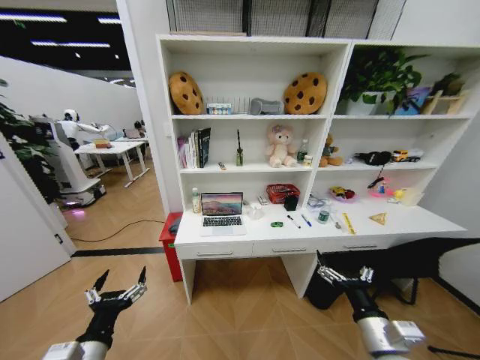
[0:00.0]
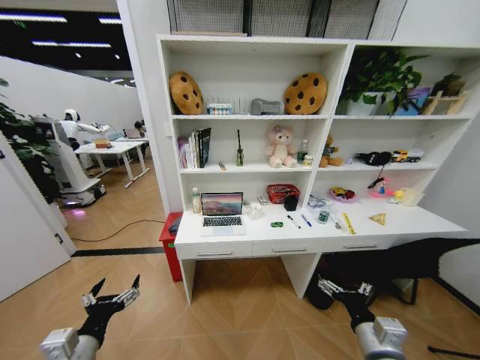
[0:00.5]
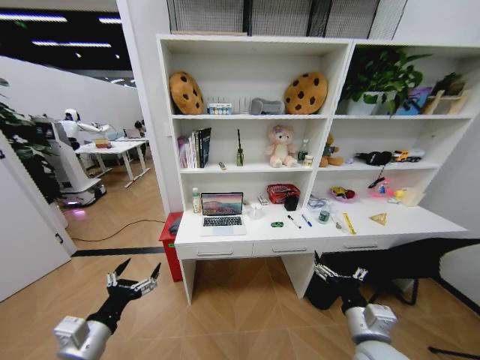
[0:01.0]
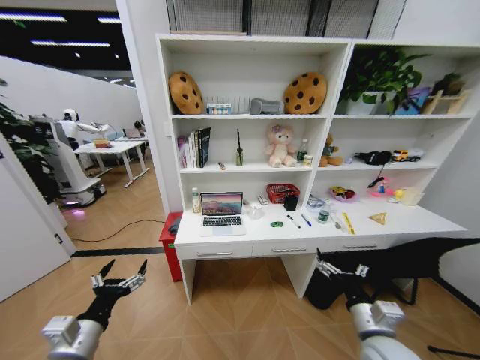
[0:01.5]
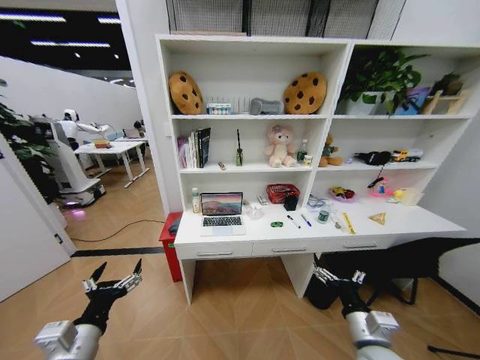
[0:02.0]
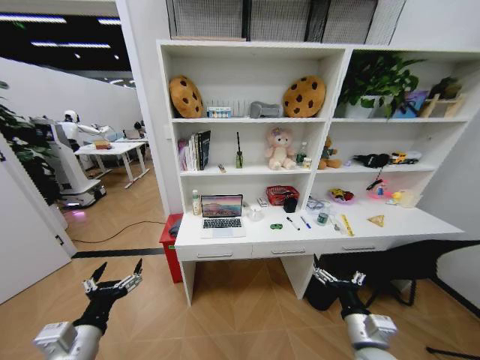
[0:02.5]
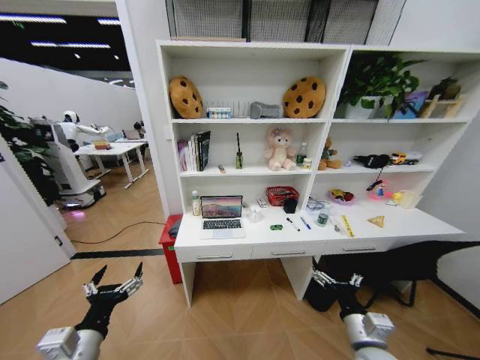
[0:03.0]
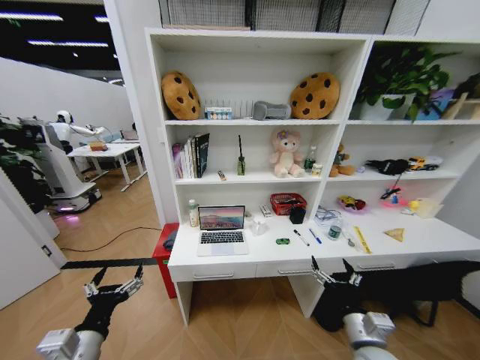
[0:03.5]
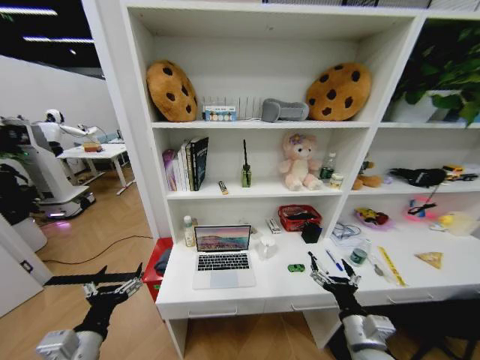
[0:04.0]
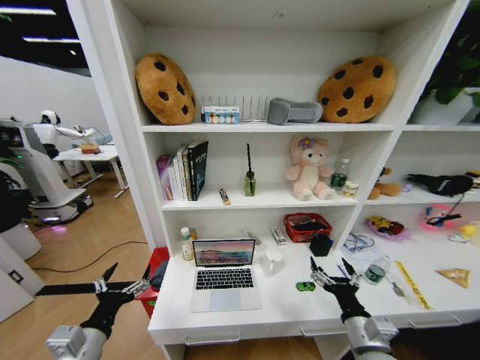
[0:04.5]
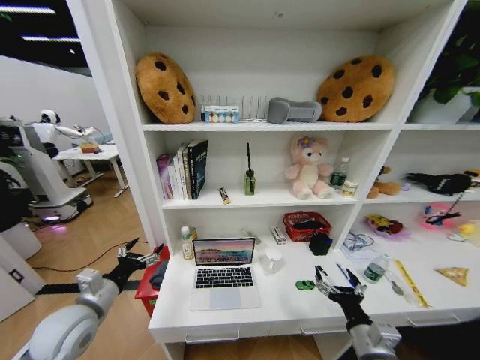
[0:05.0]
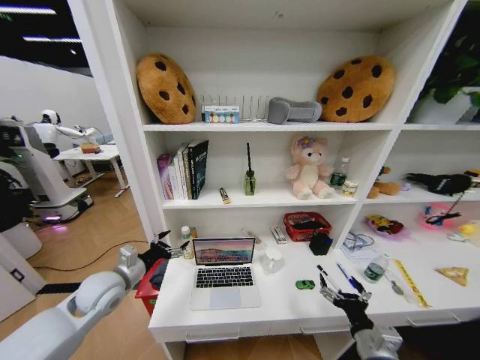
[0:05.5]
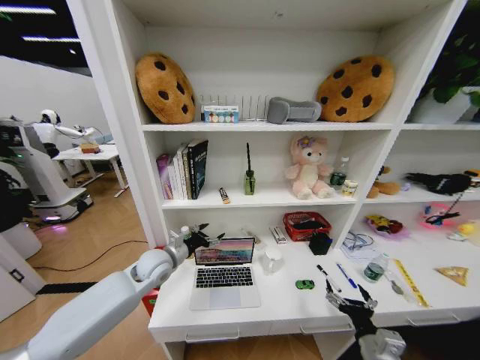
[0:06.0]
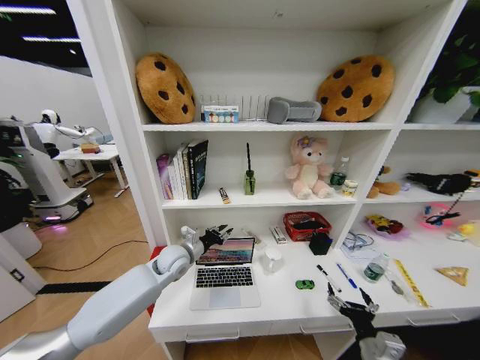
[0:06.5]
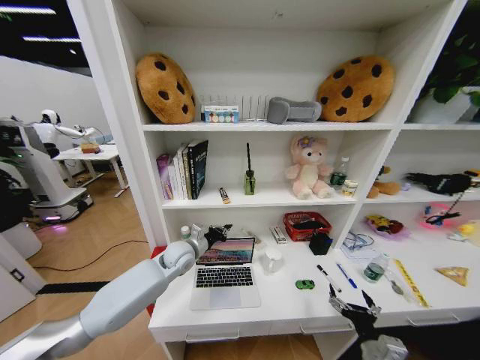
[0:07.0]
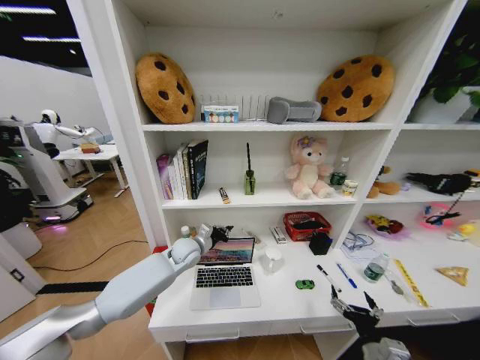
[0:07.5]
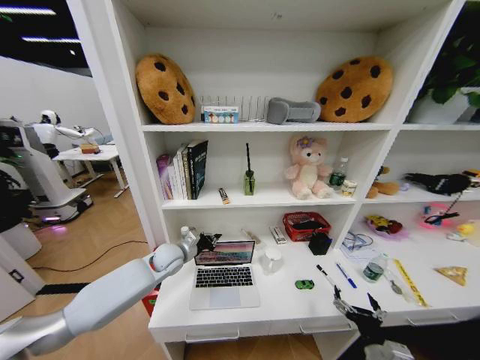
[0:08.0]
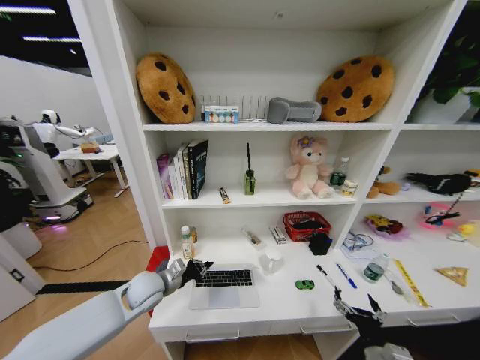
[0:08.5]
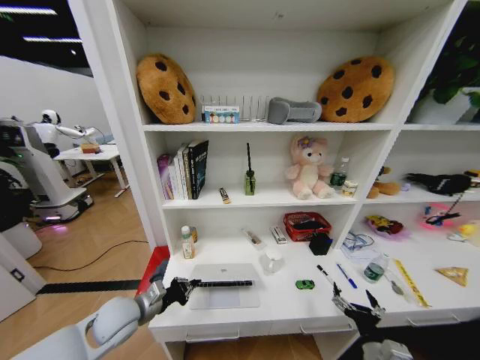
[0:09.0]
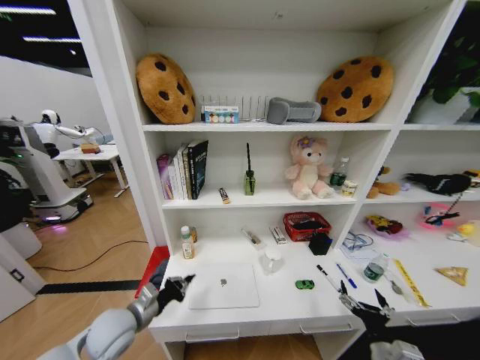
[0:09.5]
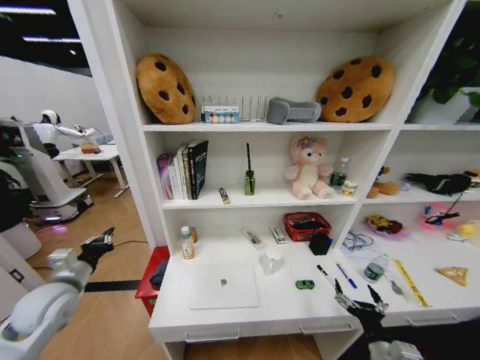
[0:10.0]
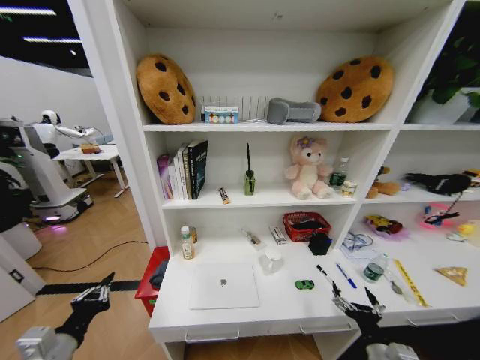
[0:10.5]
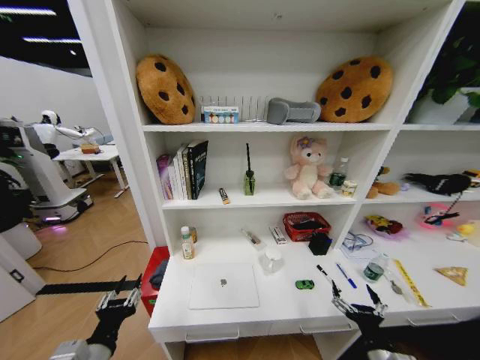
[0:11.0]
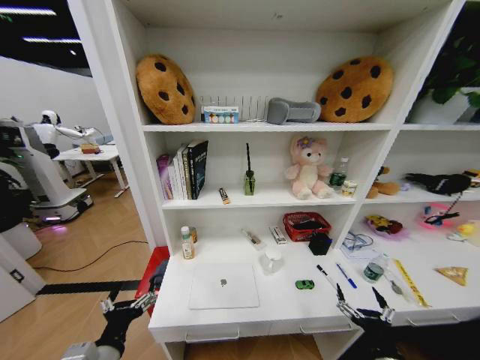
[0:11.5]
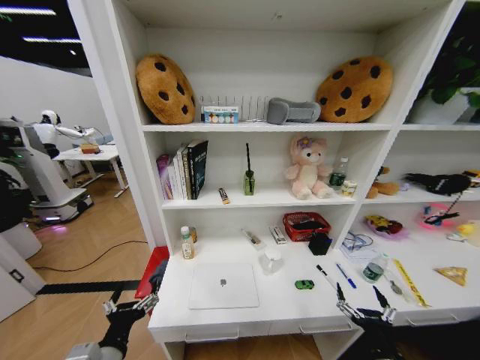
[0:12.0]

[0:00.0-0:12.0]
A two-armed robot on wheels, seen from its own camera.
Task of the whole recording: Organize the objects on the table.
0:04.0 to 0:06.0: The right gripper changes place by about 5 cm. Meanwhile the left gripper heads forward, covering approximately 25 cm.
0:06.0 to 0:08.0: The left gripper closes.
0:08.0 to 0:10.0: The left gripper shifts roughly 25 cm to the left and backward.
0:10.0 to 0:12.0: The left gripper travels backward and to the right by some 20 cm, and opens up.

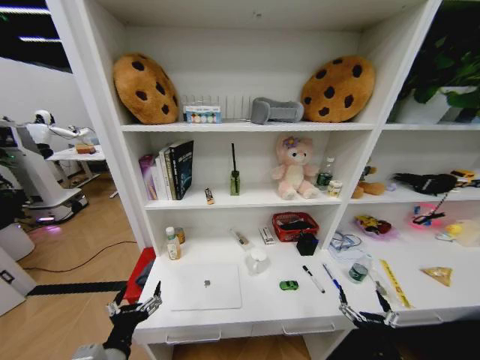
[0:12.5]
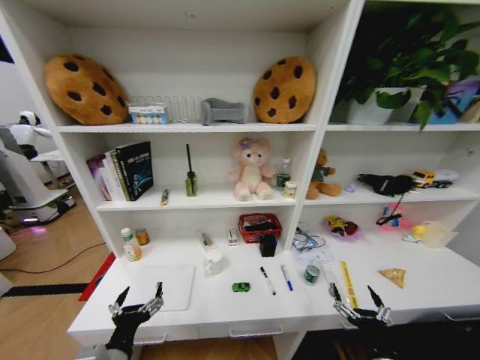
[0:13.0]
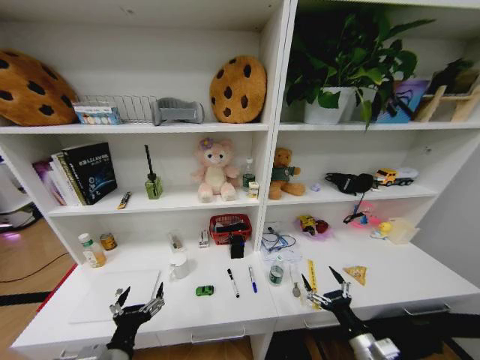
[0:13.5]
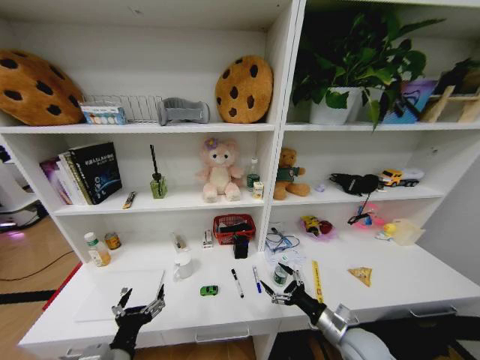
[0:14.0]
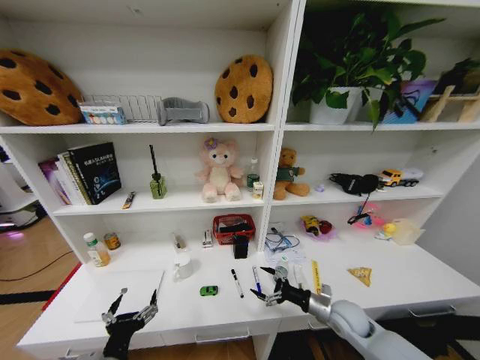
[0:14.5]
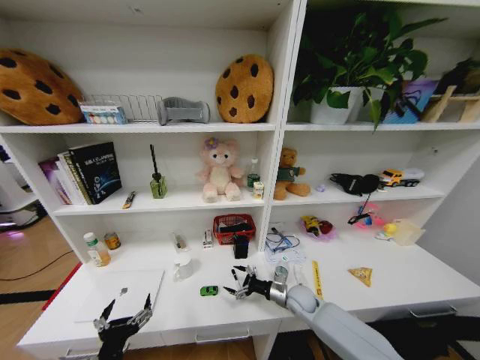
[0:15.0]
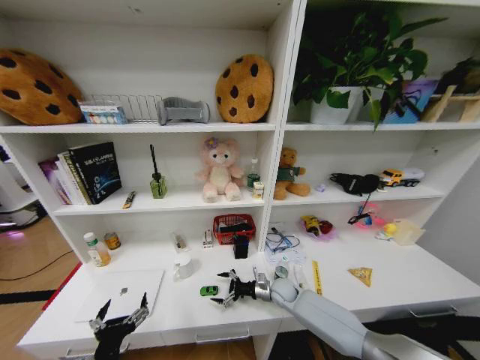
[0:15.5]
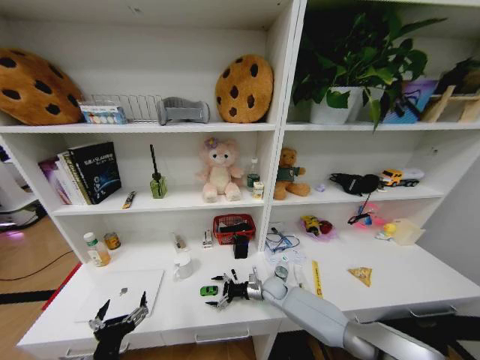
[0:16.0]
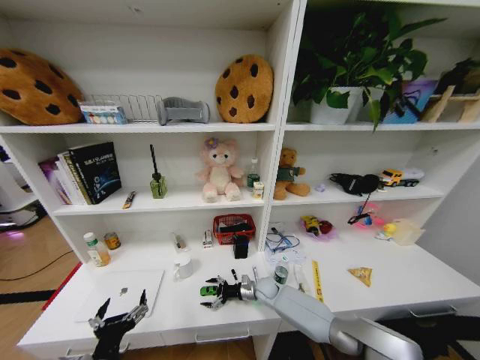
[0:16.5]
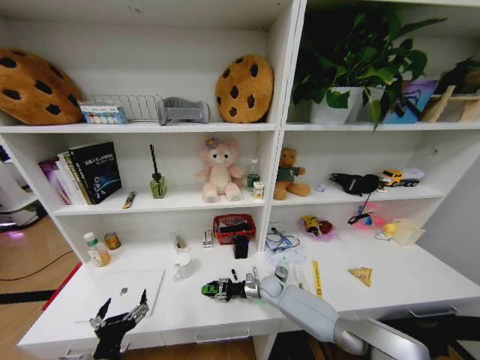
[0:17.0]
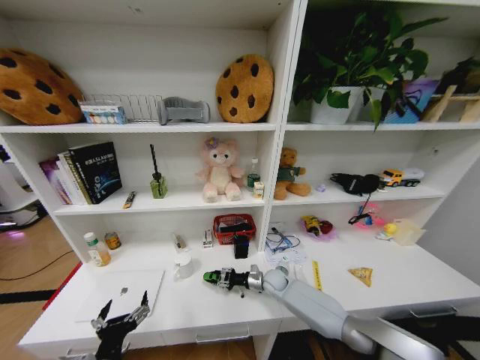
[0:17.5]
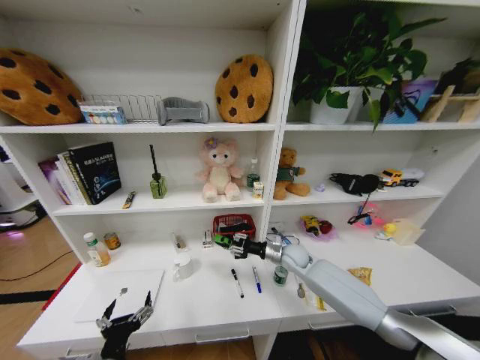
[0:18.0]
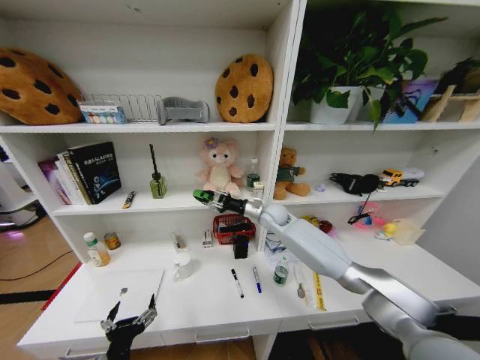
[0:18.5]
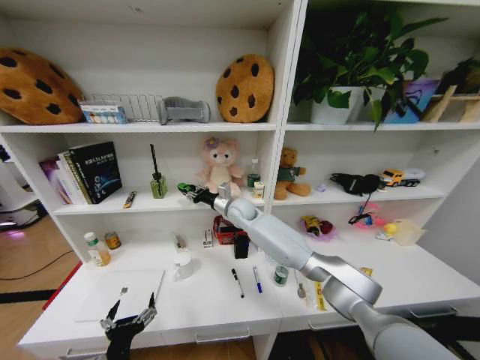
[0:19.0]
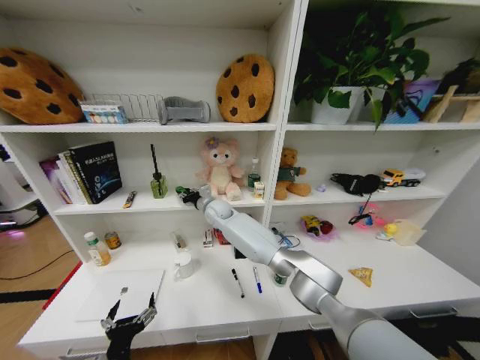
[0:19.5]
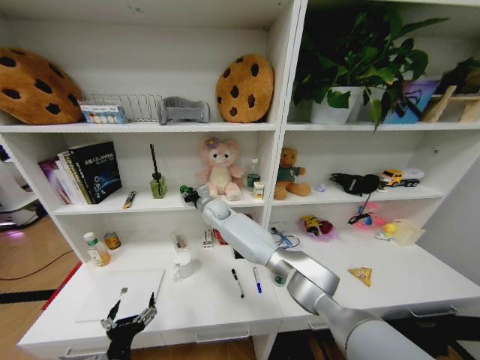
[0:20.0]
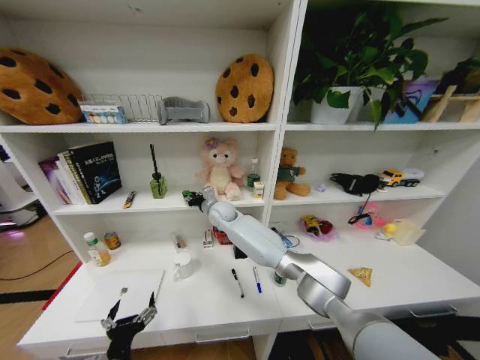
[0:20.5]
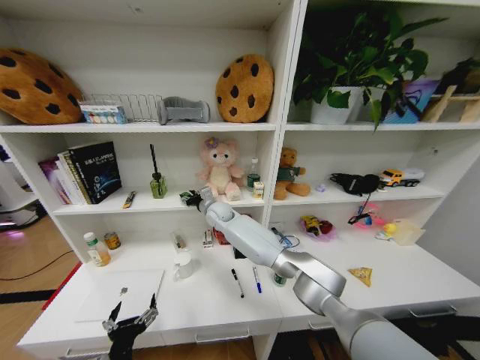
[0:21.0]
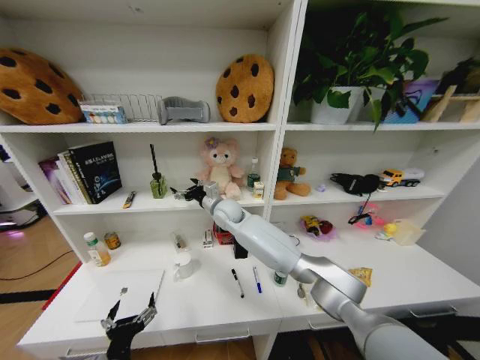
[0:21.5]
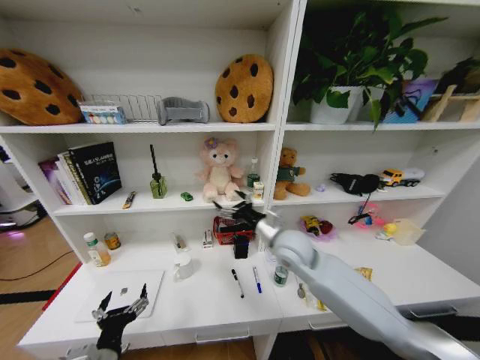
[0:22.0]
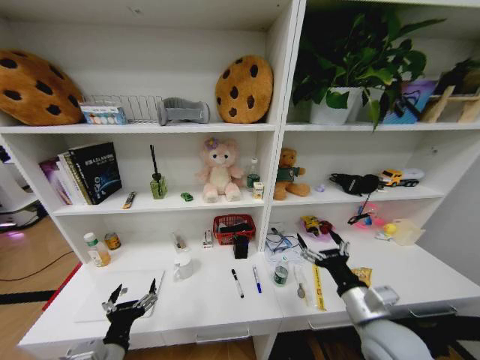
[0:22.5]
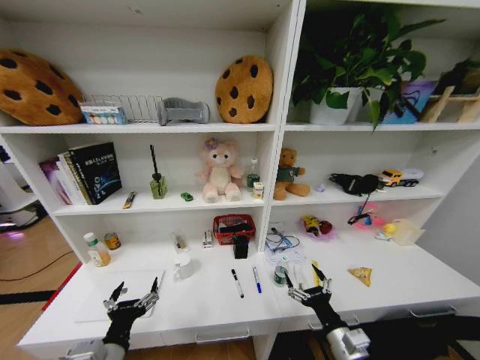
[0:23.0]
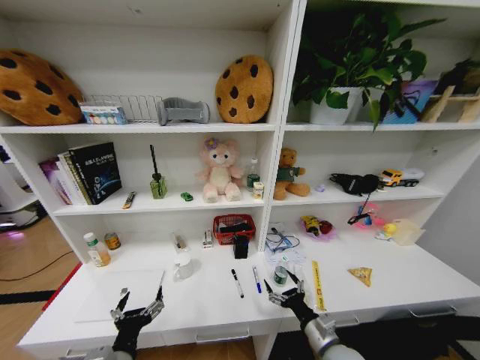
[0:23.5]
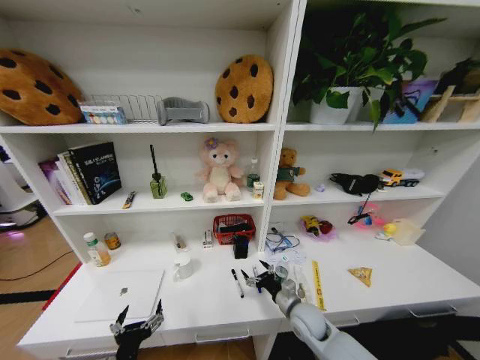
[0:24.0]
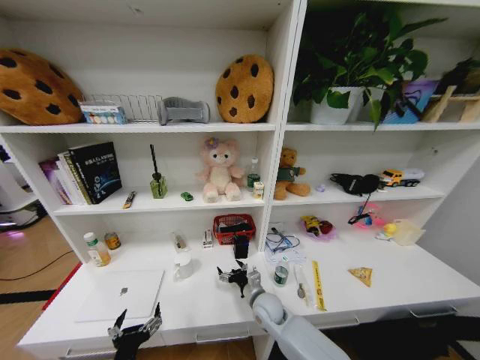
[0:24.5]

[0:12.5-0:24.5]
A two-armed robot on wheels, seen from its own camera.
Task of the whole recording: Organize the objects on the table.
0:12.5 to 0:14.5: The right gripper heads forward, covering roughly 20 cm.
0:14.5 to 0:16.5: The right gripper moves to the left, forward and downward, about 25 cm.
0:16.5 to 0:18.5: The right gripper heads upward and forward, covering approximately 30 cm, and closes.
0:18.5 to 0:20.5: The right gripper moves to the left, roughly 20 cm.
0:20.5 to 0:22.5: The right gripper moves backward and to the right, approximately 50 cm, and opens up.
0:22.5 to 0:24.5: The left gripper shifts by some 5 cm; the right gripper is displaced downward, to the left and forward by roughly 30 cm.

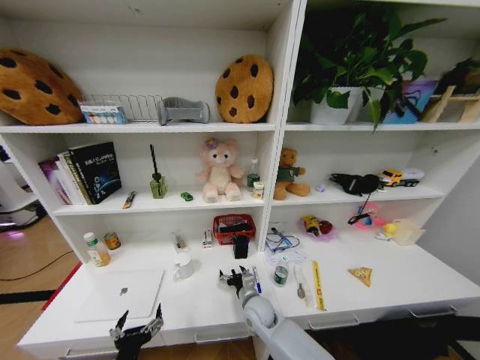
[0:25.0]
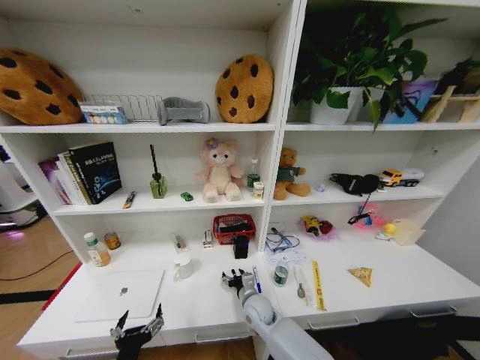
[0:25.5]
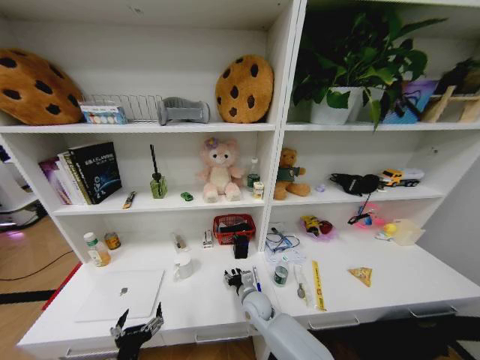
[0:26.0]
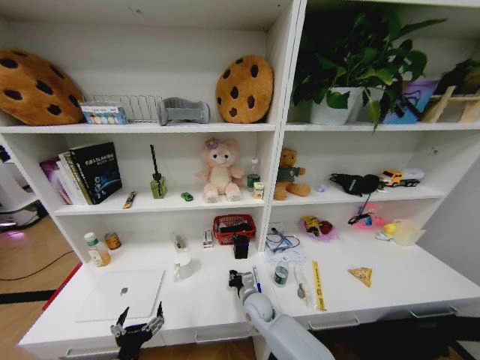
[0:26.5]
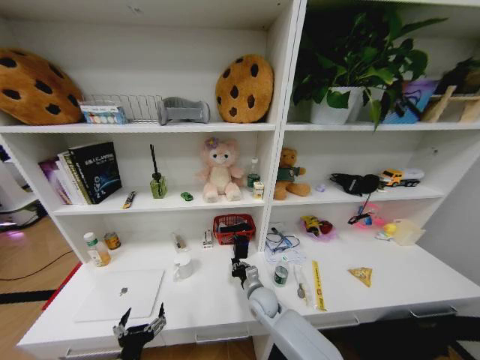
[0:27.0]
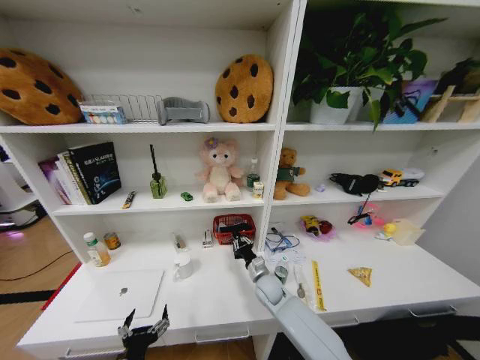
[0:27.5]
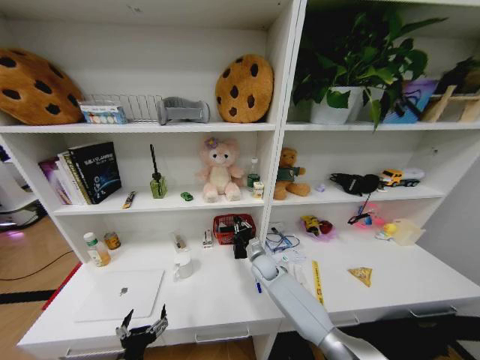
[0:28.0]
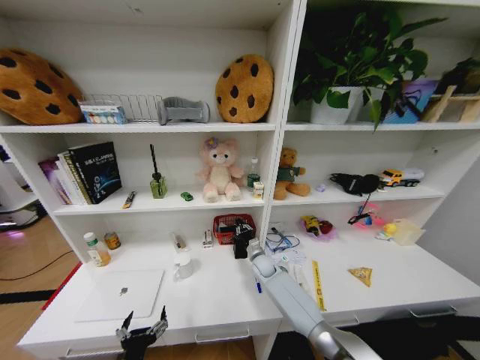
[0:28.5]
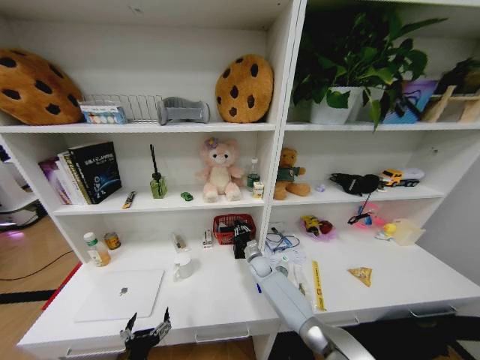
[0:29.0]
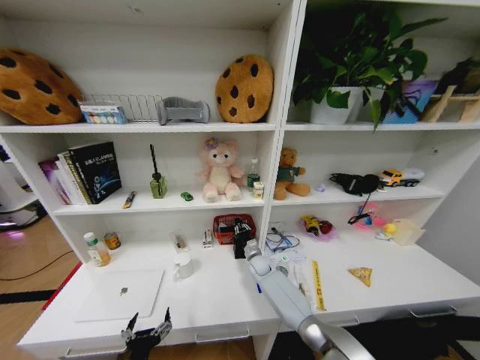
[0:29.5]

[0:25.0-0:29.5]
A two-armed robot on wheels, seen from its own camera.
Task of the whole recording: Organize the objects on the table.
0:25.0 to 0:27.0: The right gripper closes up.
0:27.0 to 0:29.5: The right gripper shifts approximately 15 cm forward.
